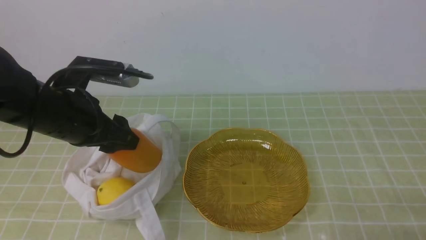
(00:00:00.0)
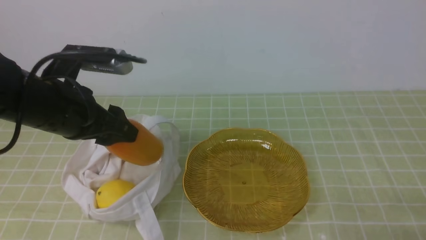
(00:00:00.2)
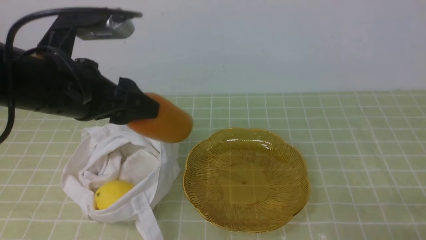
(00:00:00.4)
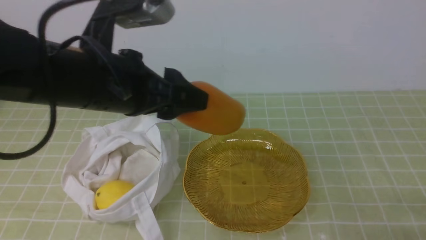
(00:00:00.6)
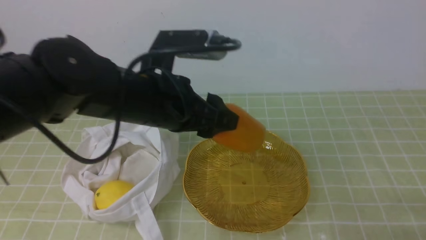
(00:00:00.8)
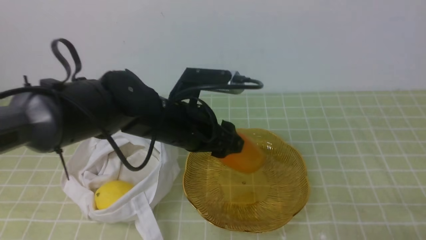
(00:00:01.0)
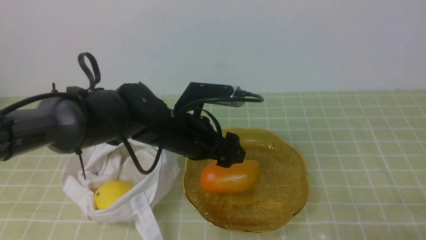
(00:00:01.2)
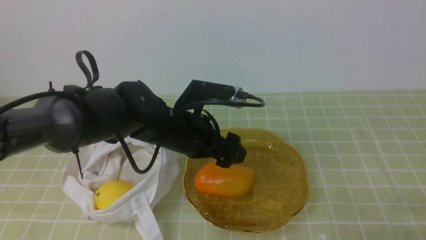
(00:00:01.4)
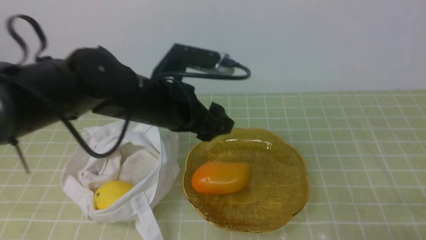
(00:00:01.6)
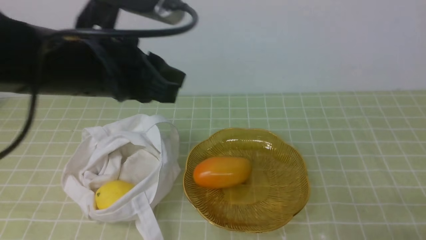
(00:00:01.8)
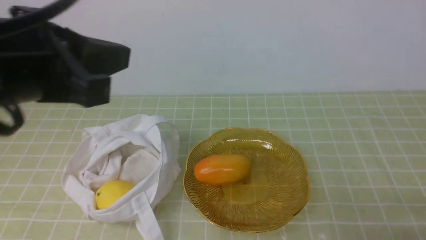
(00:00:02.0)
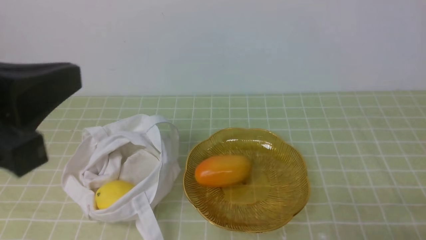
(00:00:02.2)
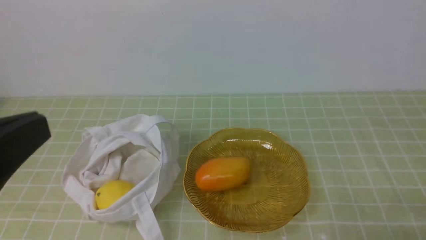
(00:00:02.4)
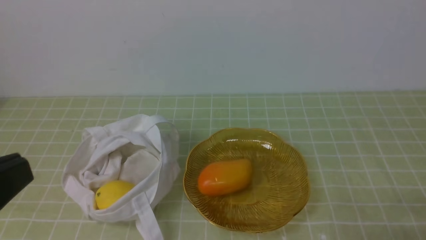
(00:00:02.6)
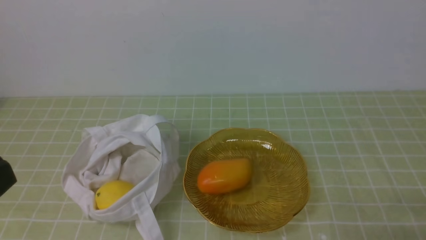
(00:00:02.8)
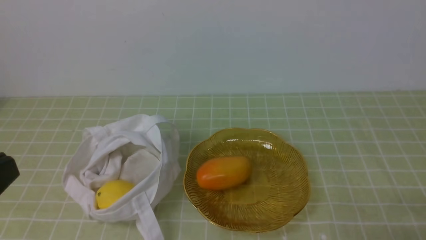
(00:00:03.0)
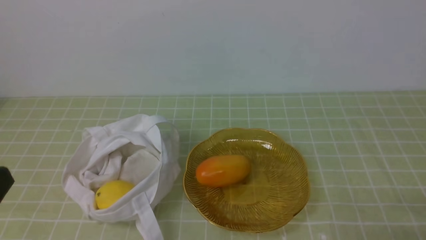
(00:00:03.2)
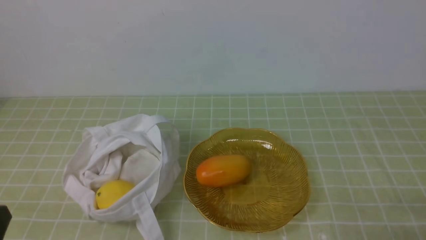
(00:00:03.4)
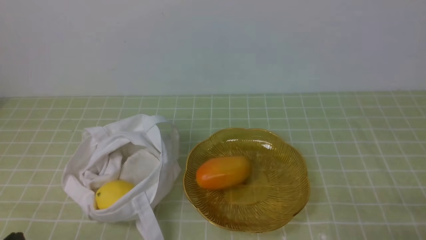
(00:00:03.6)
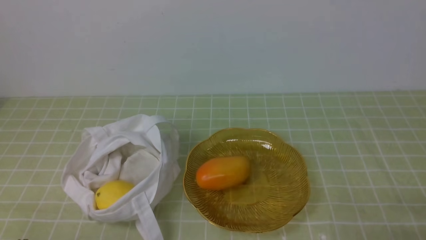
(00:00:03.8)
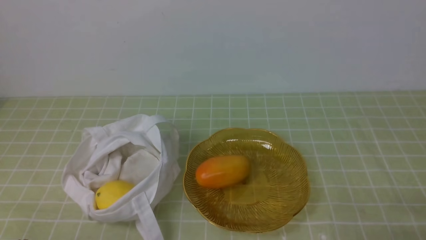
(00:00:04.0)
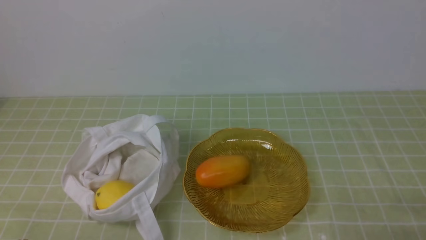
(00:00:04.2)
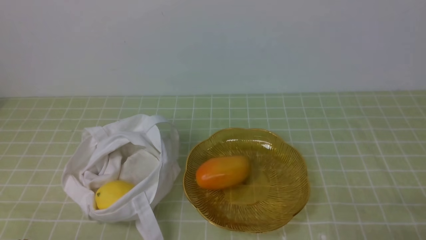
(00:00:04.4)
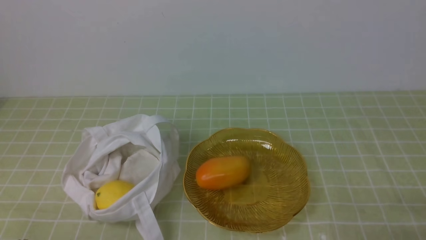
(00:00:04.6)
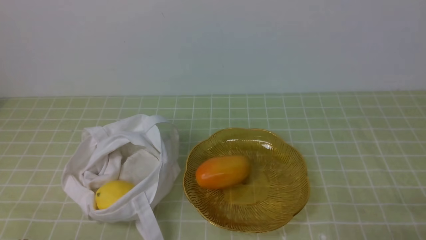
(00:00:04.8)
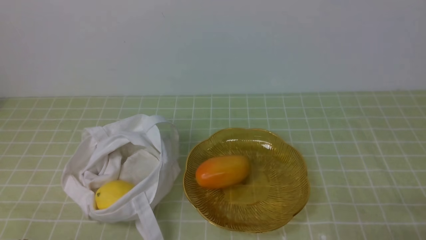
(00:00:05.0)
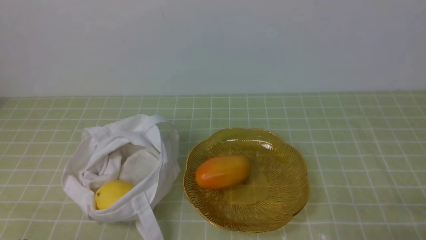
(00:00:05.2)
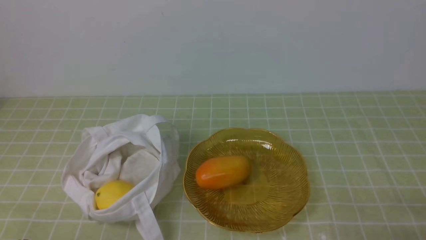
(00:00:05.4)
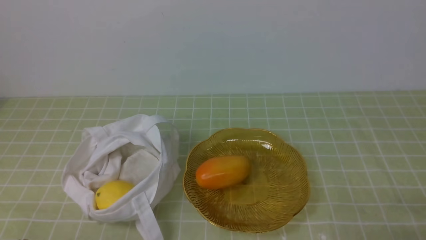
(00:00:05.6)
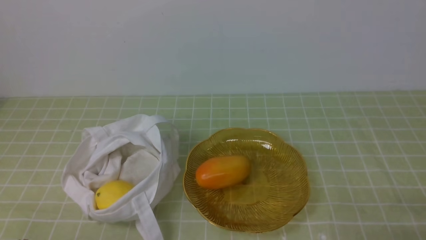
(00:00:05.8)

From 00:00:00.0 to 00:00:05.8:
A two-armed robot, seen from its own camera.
Step, from 00:00:00.0 to 00:00:01.2: use the left arm to put the mango into the empty plate on the right.
From 00:00:00.0 to 00:00:01.4: The left gripper goes some 15 cm to the right.
From 00:00:01.4 to 00:00:02.8: The left gripper is displaced backward, to the left and upward by some 35 cm, and closes.
From 00:00:04.4 to 00:00:05.8: Neither gripper changes place.
